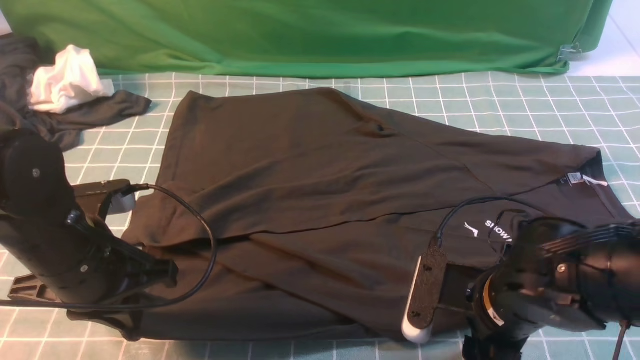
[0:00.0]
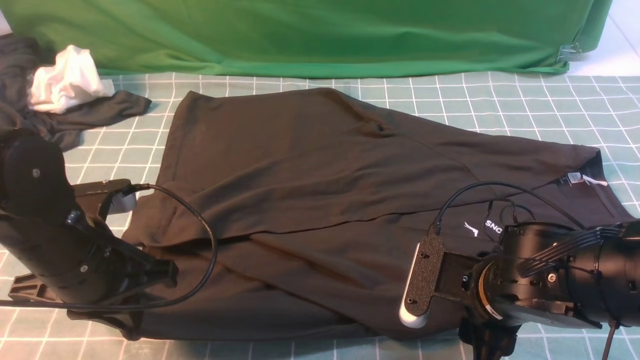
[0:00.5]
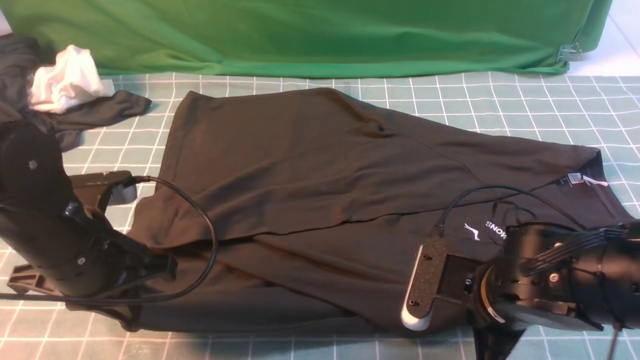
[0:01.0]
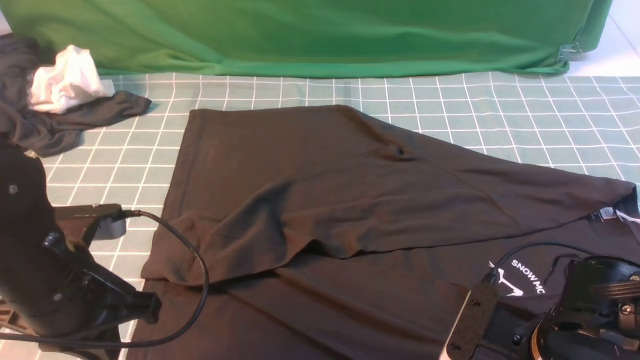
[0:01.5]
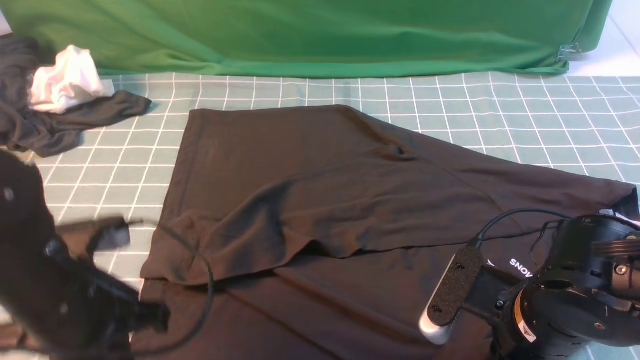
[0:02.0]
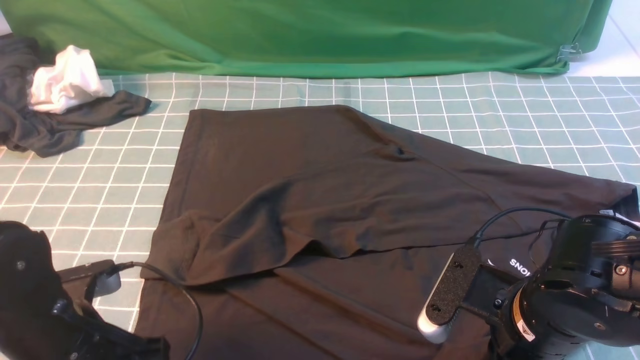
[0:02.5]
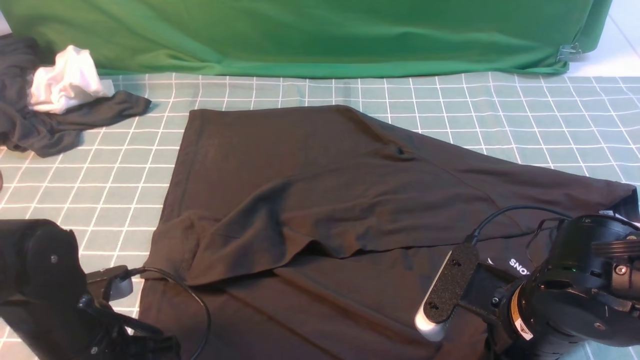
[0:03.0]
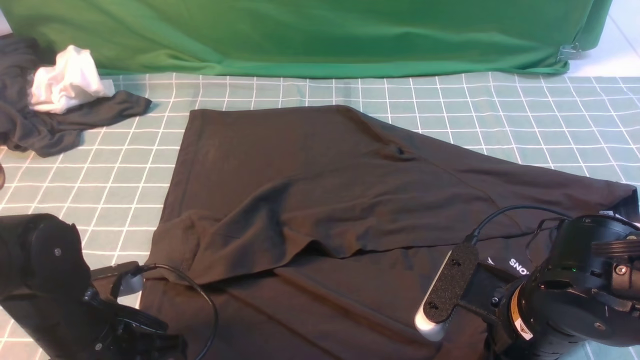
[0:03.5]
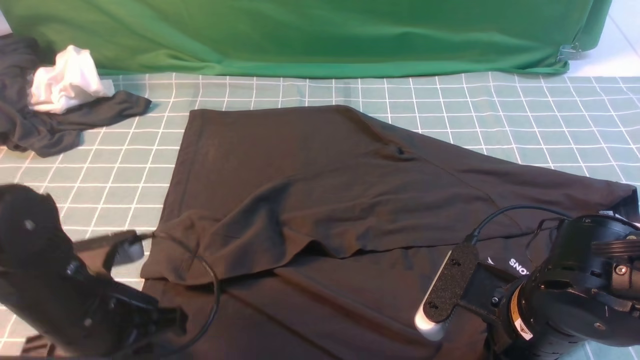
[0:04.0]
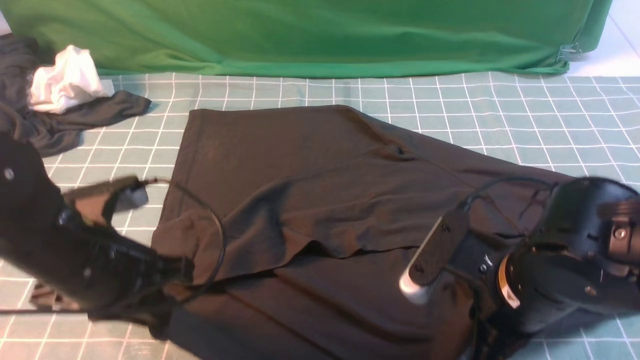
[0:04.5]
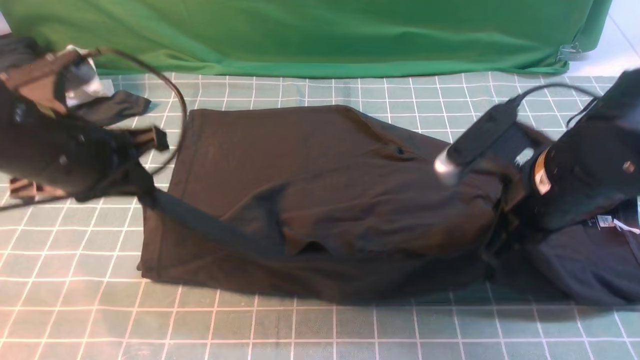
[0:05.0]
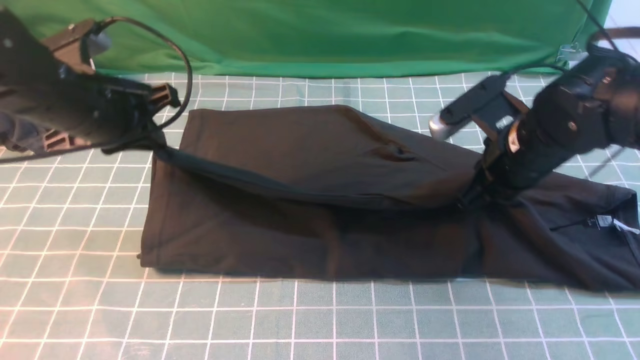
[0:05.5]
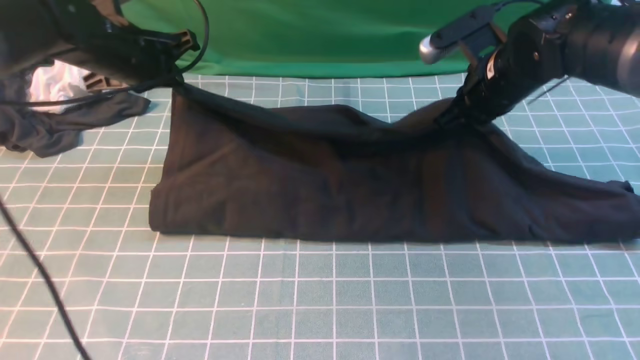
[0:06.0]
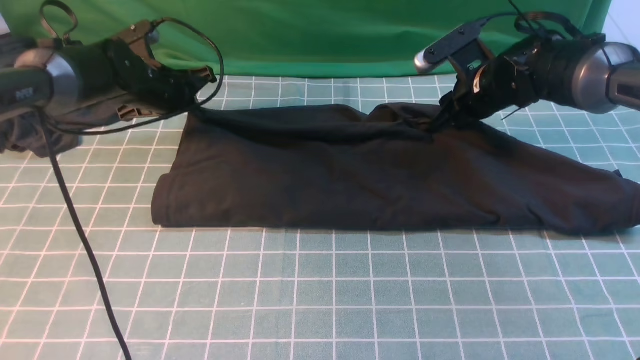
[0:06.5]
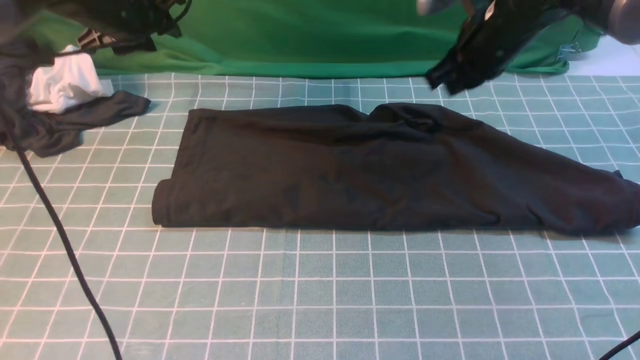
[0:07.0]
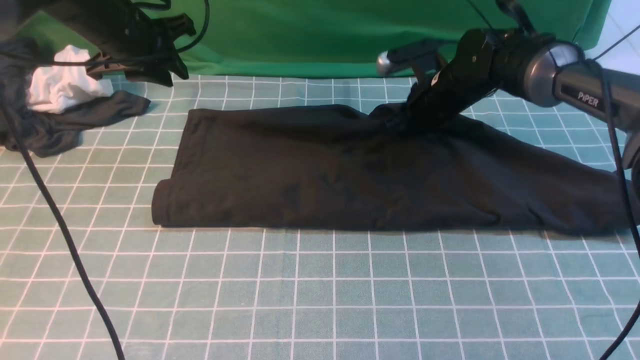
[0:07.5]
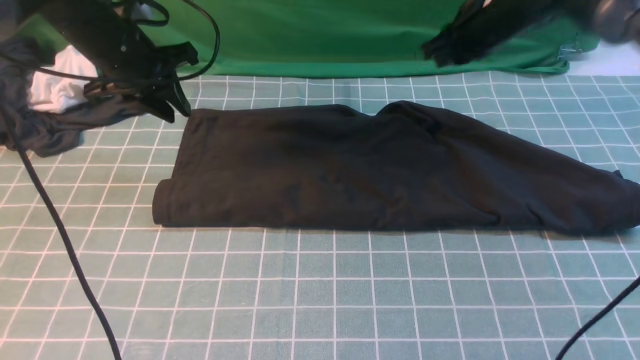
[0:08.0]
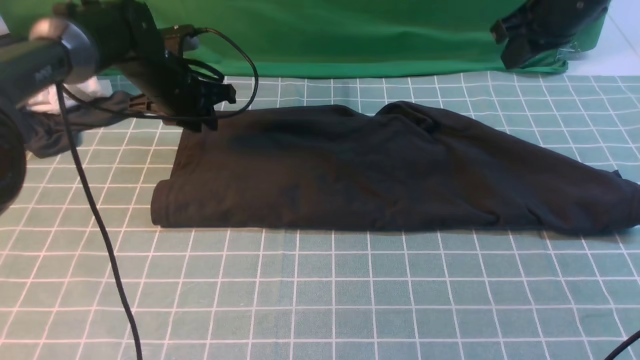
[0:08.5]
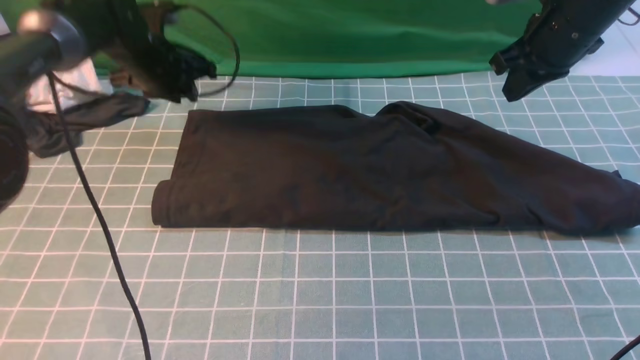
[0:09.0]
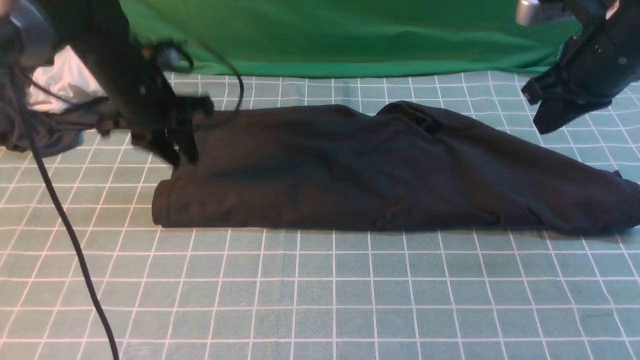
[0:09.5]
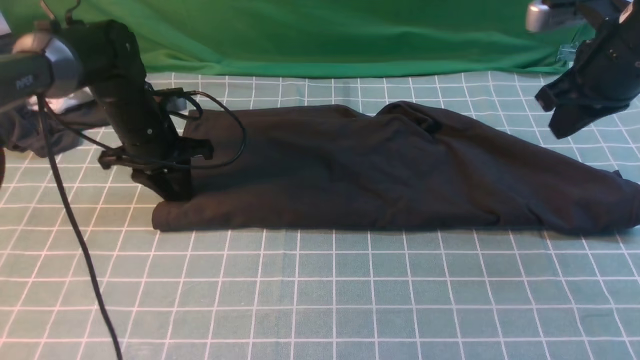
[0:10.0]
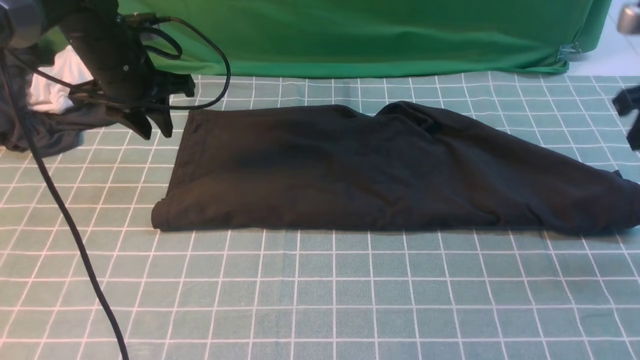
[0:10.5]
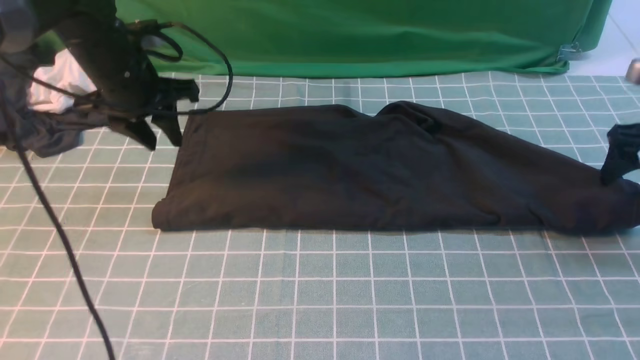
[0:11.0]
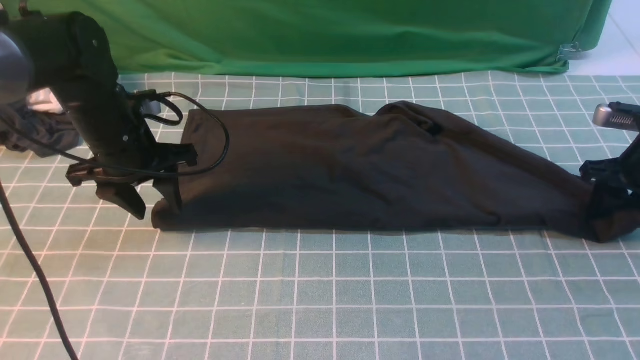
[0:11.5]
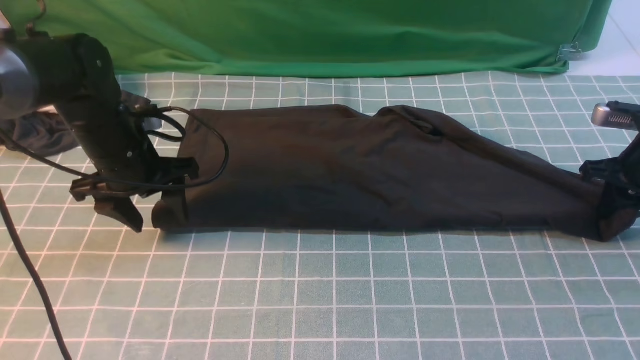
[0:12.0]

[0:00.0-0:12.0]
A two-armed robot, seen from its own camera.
Step, 0:00.0 to 0:04.0: use both arms simultaneously to clamp the lower edge of the clothing fabric.
Step, 0:04.5 to 0:09.0: use both arms to drag the lower edge of the fabric forward and fold it over the upper edge.
0:00.0 to 0:02.0: The right gripper closes its fingers.
0:02.0 to 0:04.0: The left gripper opens and closes again.
0:04.0 to 0:06.0: The grippers both shift forward by approximately 25 cm.
0:06.0 to 0:08.0: The right gripper is displaced forward by approximately 10 cm, and opens, then closes again. Meanwhile the left gripper goes downward and returns, approximately 5 cm each way.
0:08.0 to 0:10.0: The left gripper goes up and down, roughly 5 cm each way, reversing 2 times. The right gripper goes some 15 cm backward and to the right.
0:10.0 to 0:12.0: The right gripper travels downward and to the right by roughly 20 cm, and opens, then closes once more, while the left gripper travels backward by roughly 5 cm, and opens.

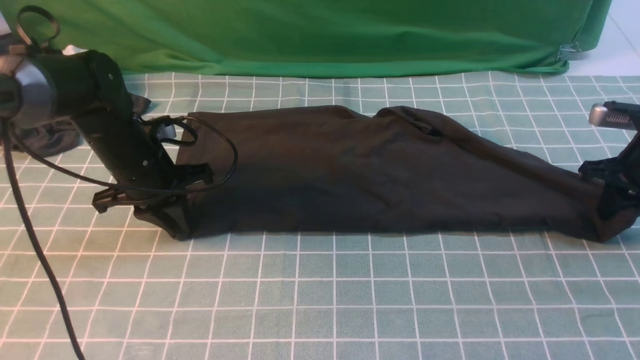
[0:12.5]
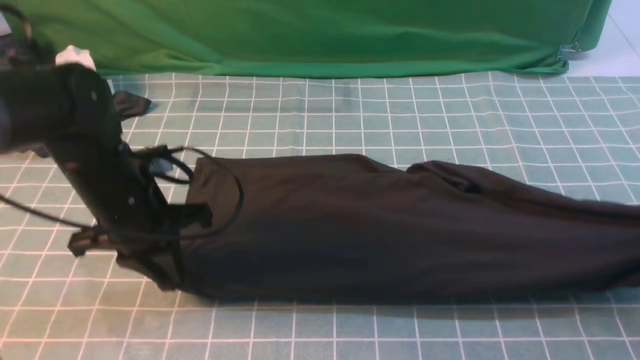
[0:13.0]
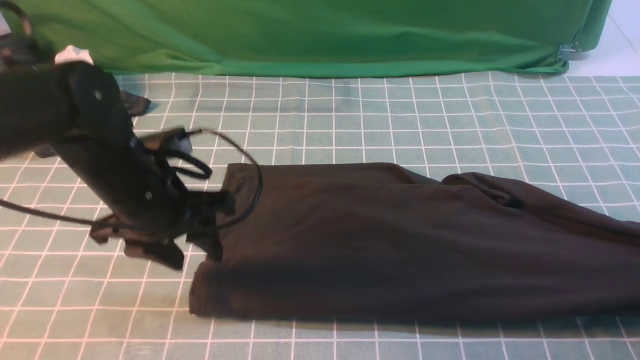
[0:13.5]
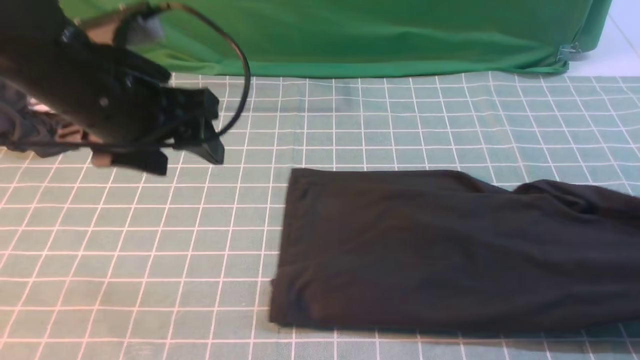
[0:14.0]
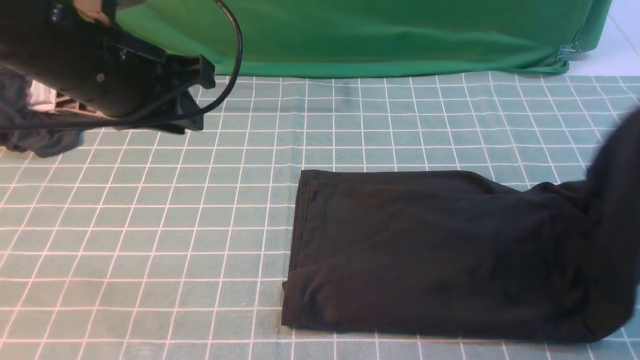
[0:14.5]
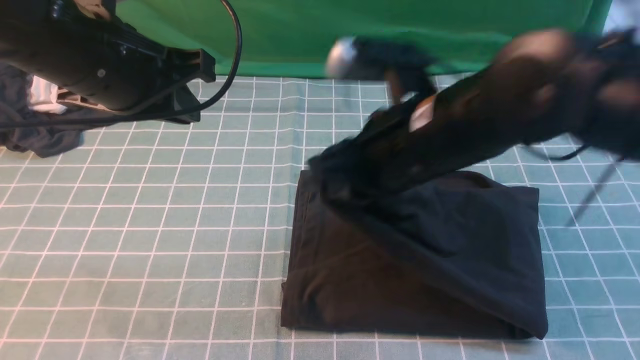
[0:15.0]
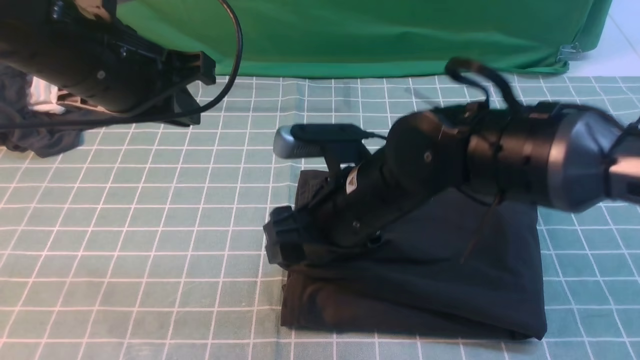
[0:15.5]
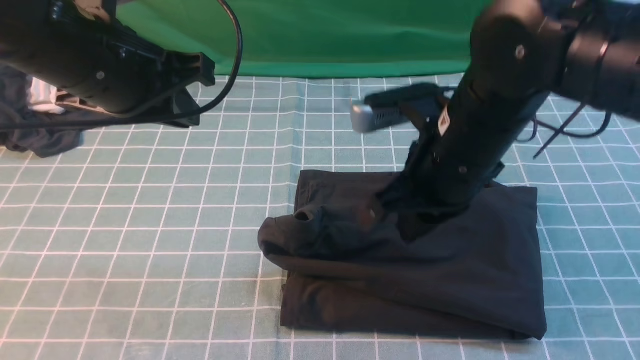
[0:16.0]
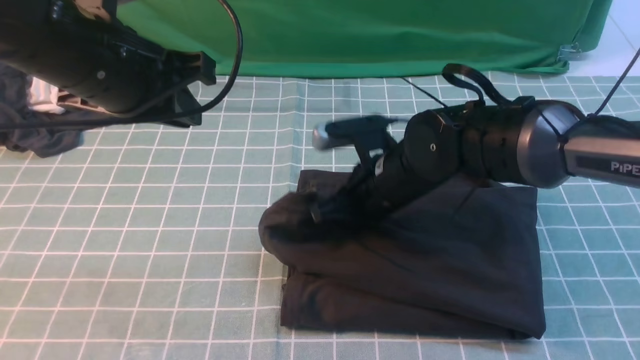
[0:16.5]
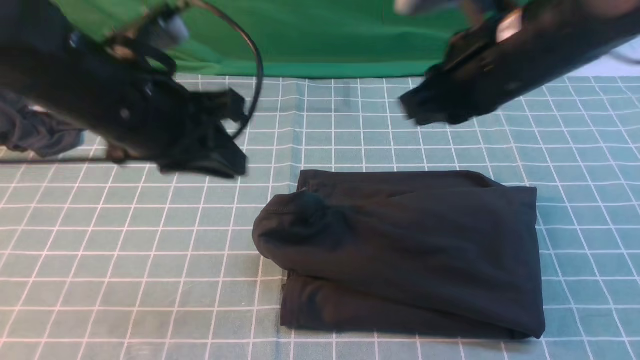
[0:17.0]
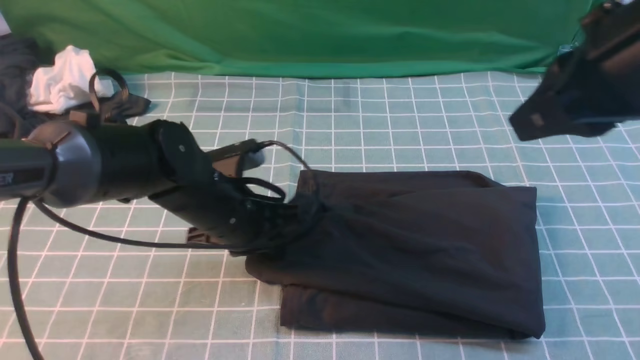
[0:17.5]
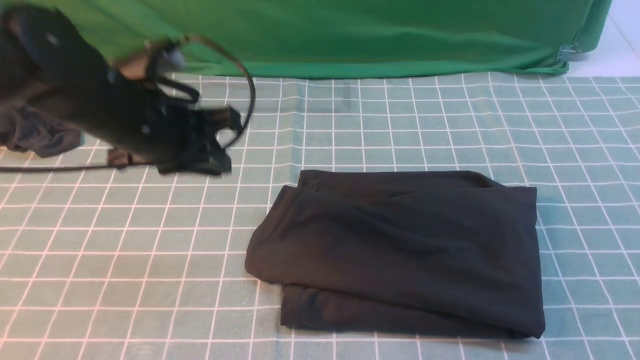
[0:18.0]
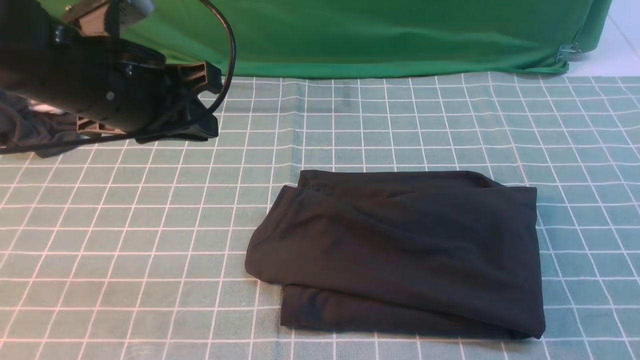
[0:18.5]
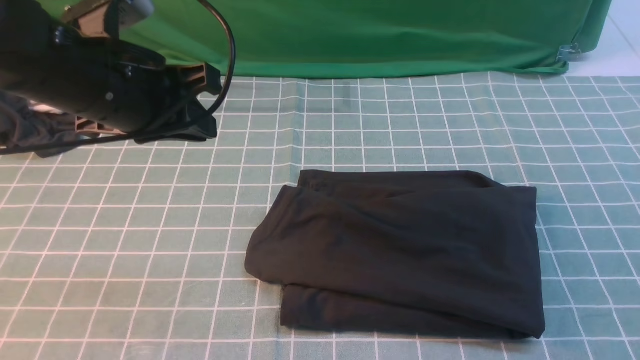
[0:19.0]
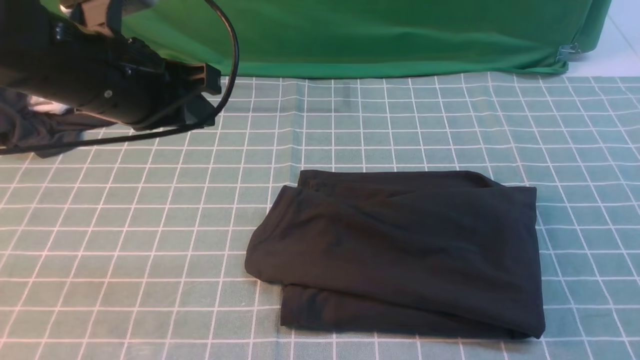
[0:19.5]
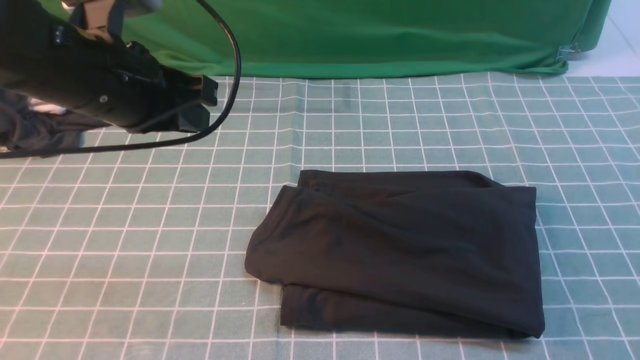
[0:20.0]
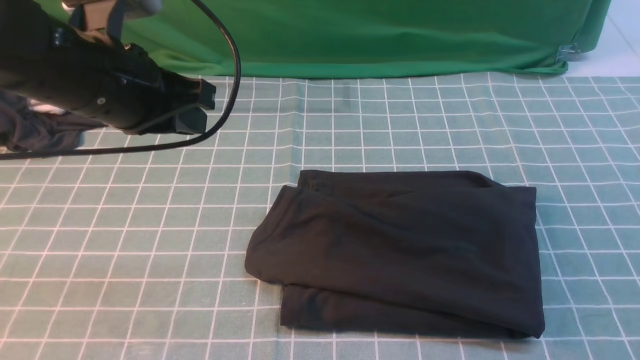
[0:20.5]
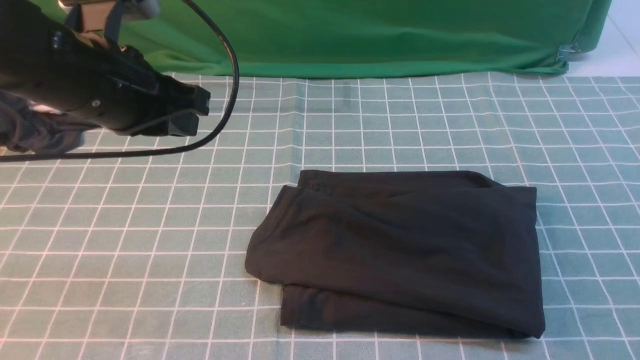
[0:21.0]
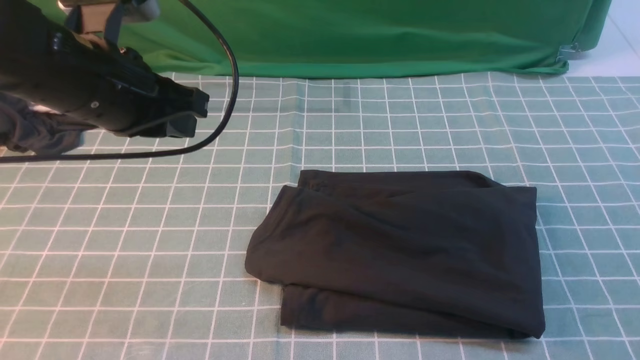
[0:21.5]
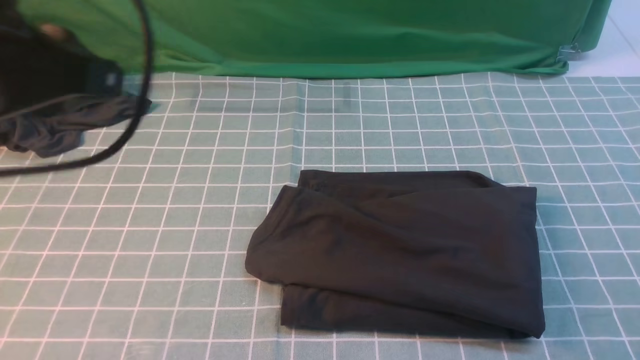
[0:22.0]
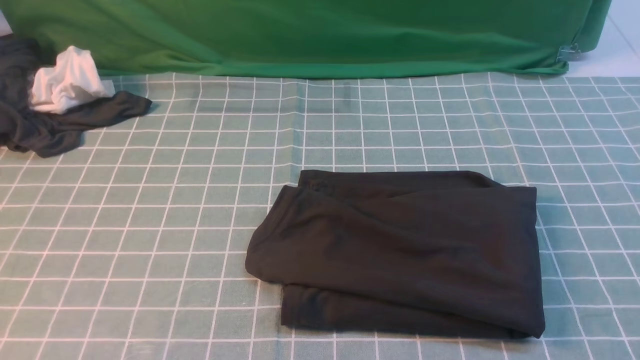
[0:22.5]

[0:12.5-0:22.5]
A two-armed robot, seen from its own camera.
Step, 0:13.5 to 0:18.0: use the right arm to drag the right edge of the fabric to the left and folds it over the left edge.
0:12.5 to 0:14.5: The left gripper moves upward and backward, some 20 cm, and opens, then closes once more. The right gripper heads upward, backward and to the left, covering some 20 cm.
0:14.5 to 0:16.5: The right gripper shifts about 30 cm to the left and downward, and opens and closes again.
0:16.5 to 0:18.5: The right gripper travels backward, to the right and upward by about 40 cm. The left gripper moves about 15 cm downward and comes back.
0:18.5 to 0:20.5: The right gripper moves downward, approximately 15 cm.
0:20.5 to 0:22.5: The left gripper moves backward, some 25 cm.
